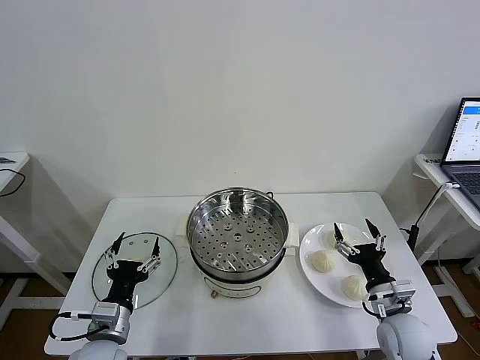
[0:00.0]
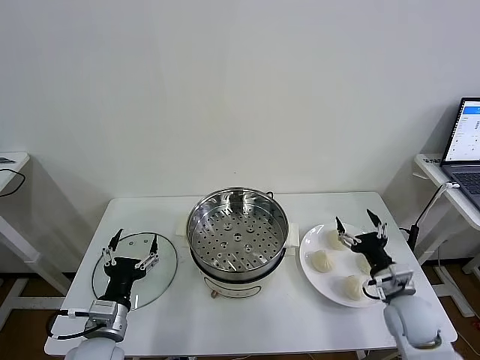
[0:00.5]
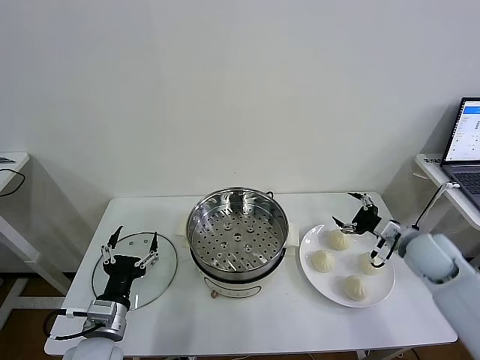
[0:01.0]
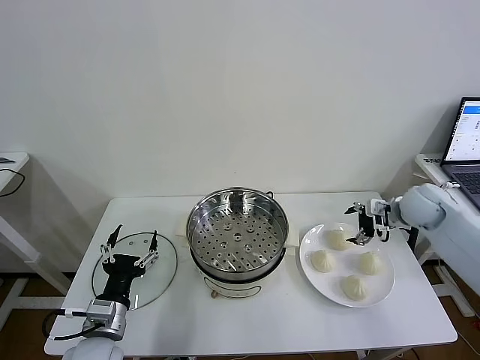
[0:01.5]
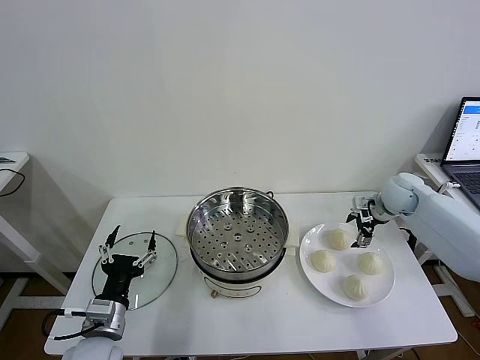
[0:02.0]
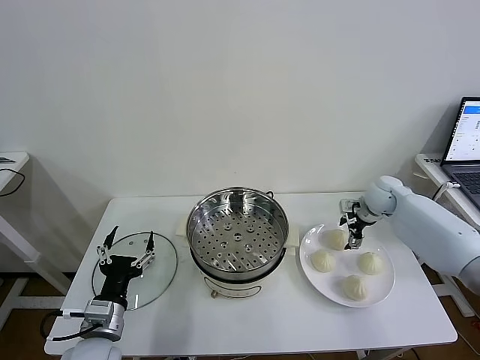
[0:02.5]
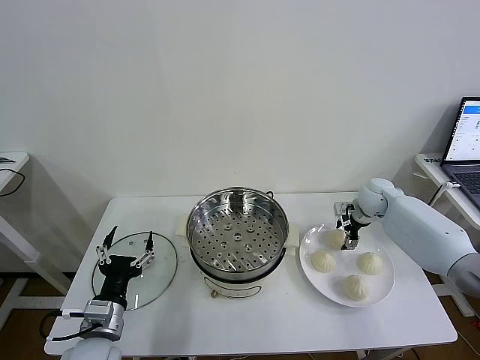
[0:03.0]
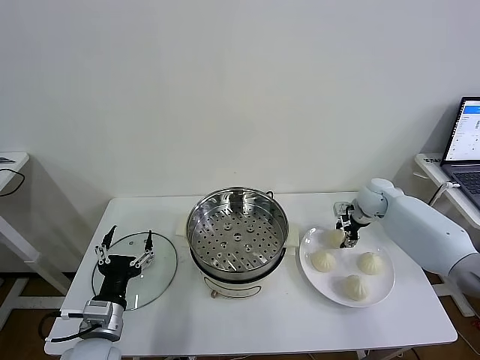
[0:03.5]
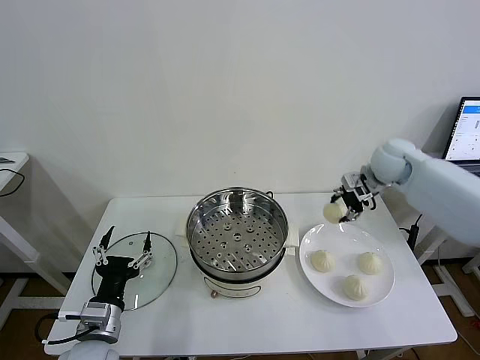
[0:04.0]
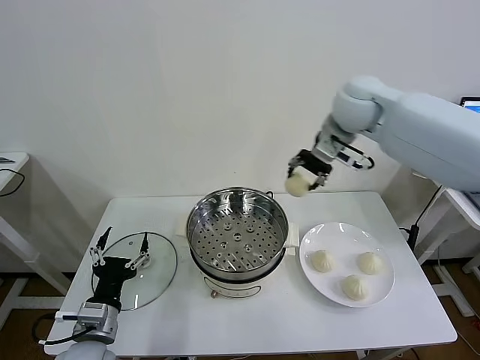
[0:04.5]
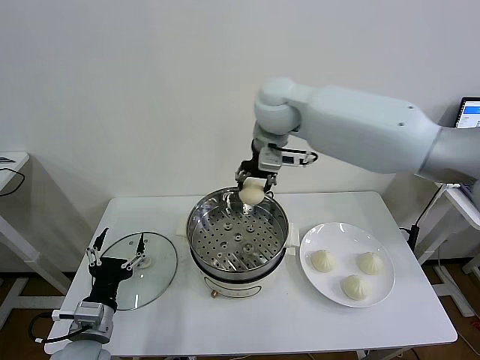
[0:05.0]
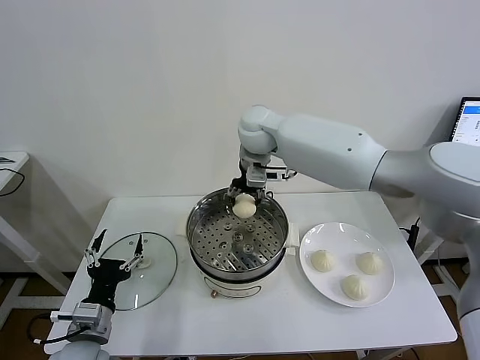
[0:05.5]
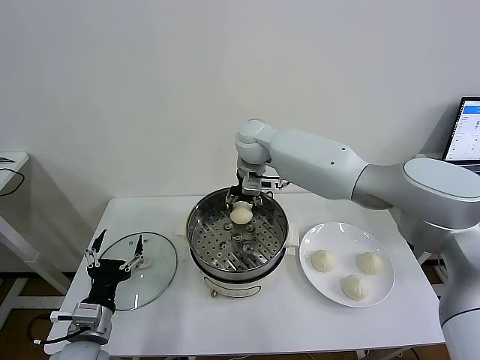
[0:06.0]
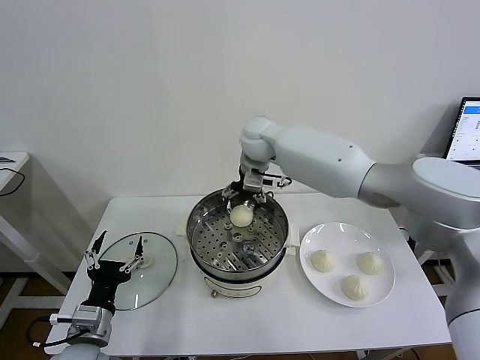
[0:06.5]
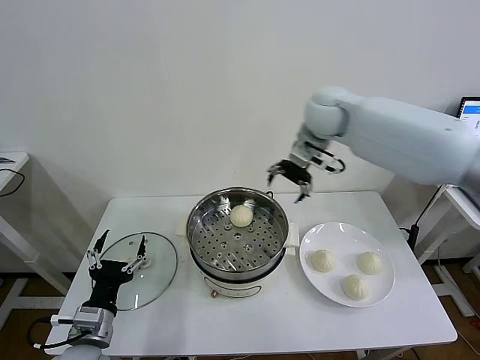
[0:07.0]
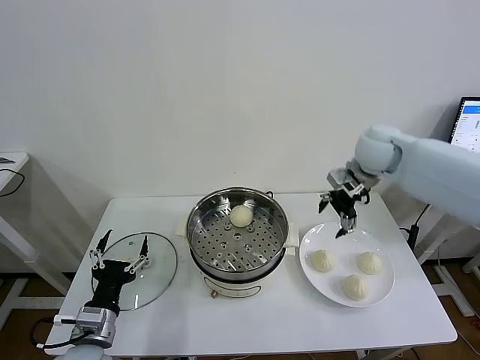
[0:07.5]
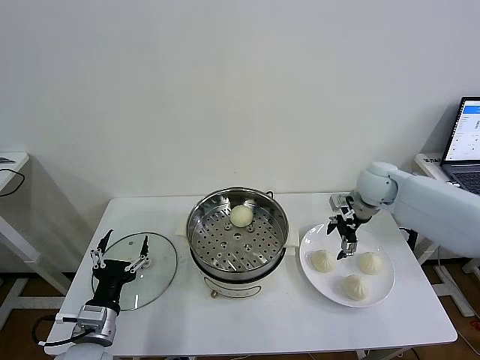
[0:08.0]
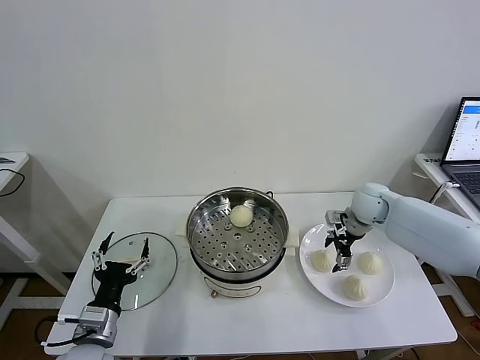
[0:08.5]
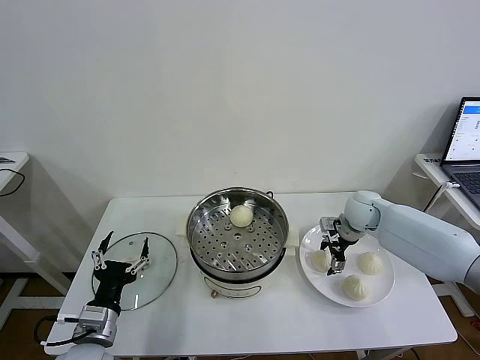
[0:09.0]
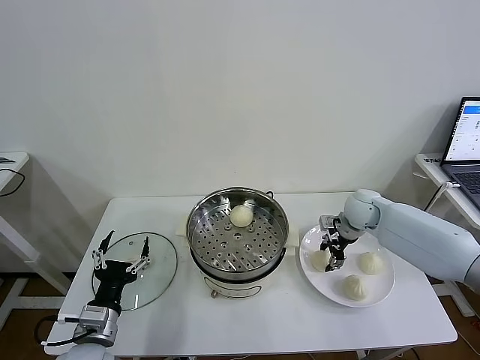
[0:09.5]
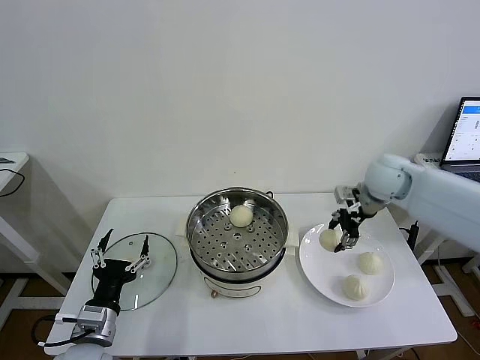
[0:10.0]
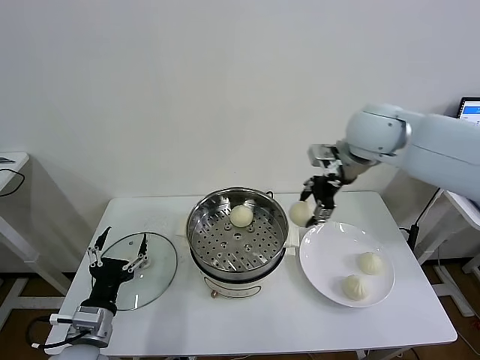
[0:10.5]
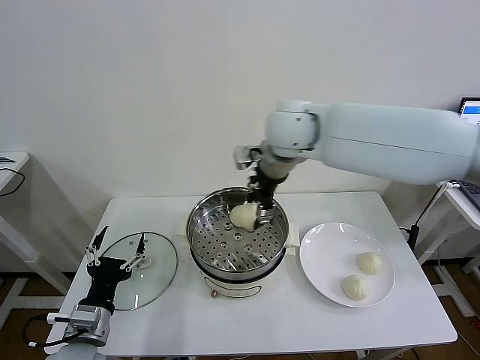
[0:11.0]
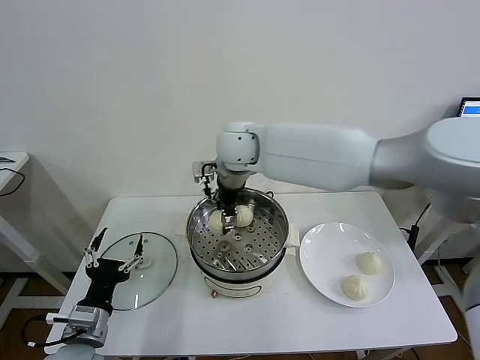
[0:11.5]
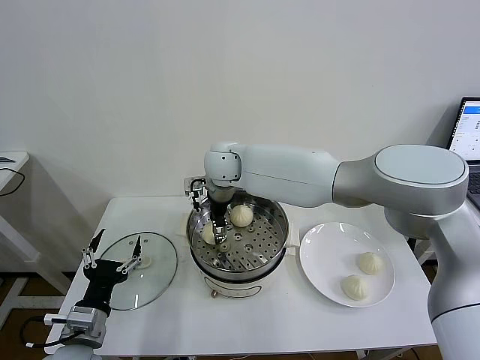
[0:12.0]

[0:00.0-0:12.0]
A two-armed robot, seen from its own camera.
Task of the whole recording: take steamed baozi put them in steamer then cover it.
Step, 0.0 to 3.0 s: Grasp the baozi in the plate with right gripper.
Step, 3.5 to 6.0 s: Place the baozi on the steamer with right gripper.
Step, 6.5 to 9.0 s: Grasp the baozi in the plate with right gripper.
2.0 to 4.0 s: The right gripper is displaced upward and to the left by roughly 15 cm, and closes up.
4.0 to 6.0 s: The right gripper moves to the left, approximately 30 cm.
6.0 to 8.0 s: The right gripper moves to the right, about 30 cm, and opens.
8.0 to 10.0 s: The right gripper goes some 5 cm upward, and closes its fingers.
10.0 to 12.0 s: The right gripper goes about 35 cm to the left, and opens.

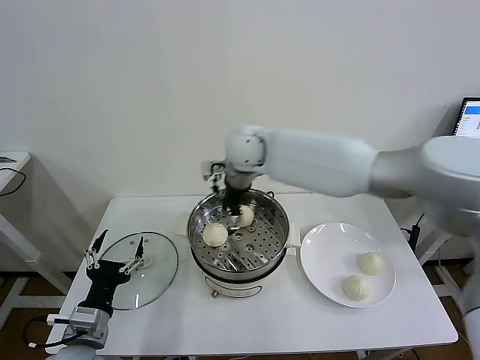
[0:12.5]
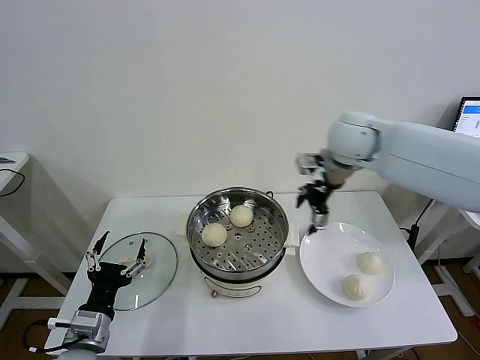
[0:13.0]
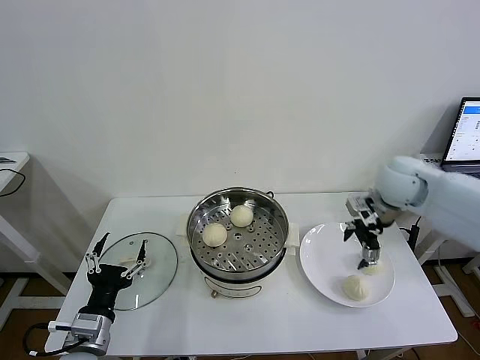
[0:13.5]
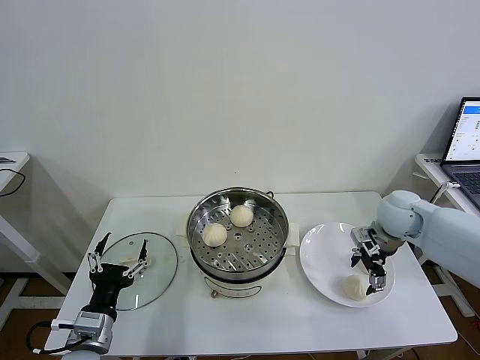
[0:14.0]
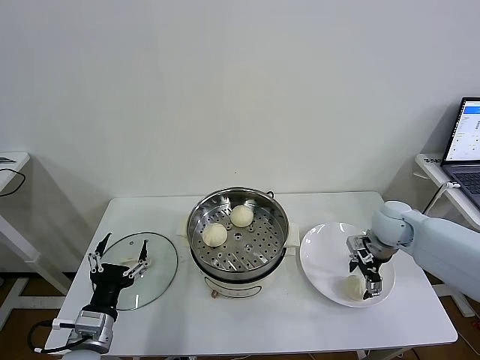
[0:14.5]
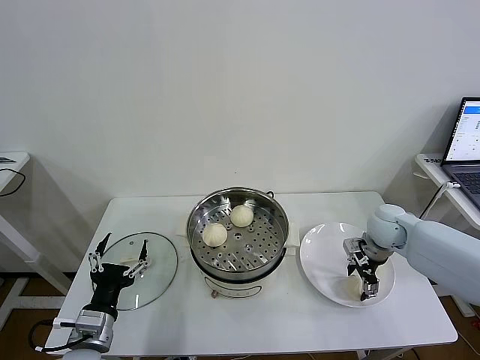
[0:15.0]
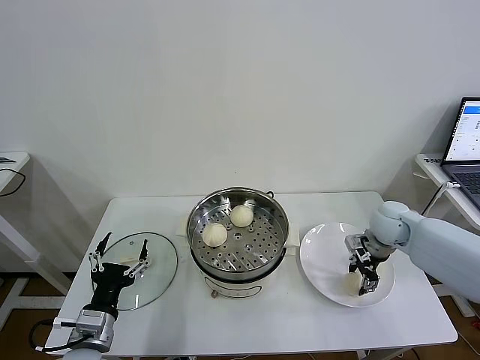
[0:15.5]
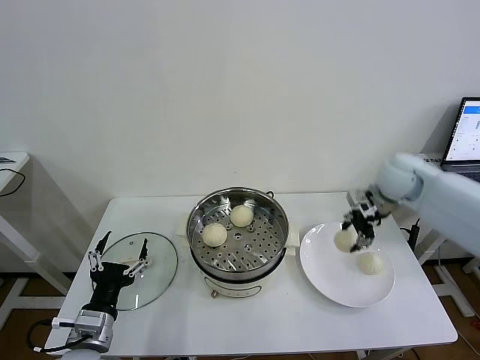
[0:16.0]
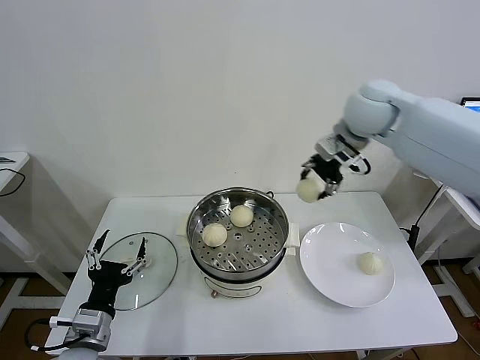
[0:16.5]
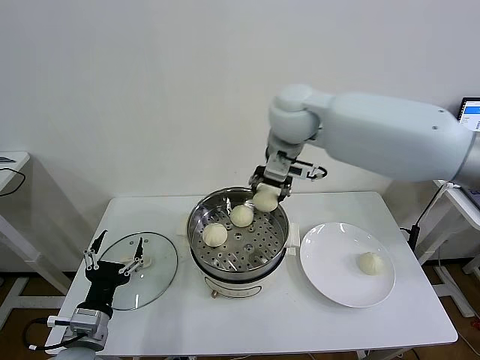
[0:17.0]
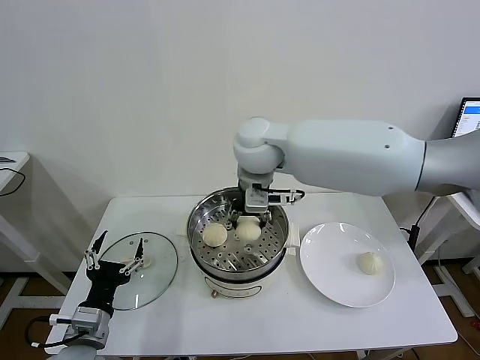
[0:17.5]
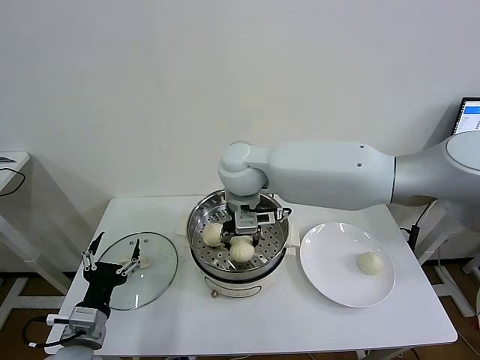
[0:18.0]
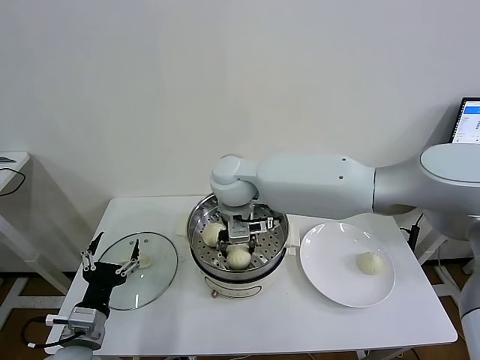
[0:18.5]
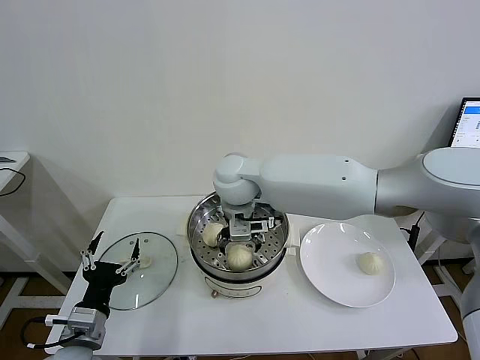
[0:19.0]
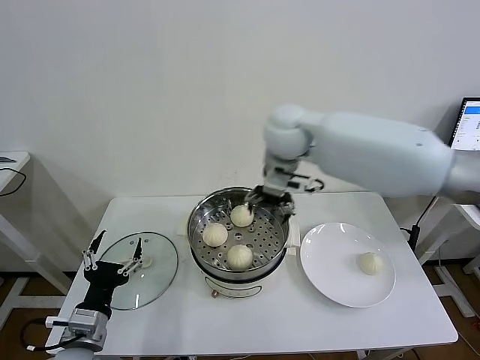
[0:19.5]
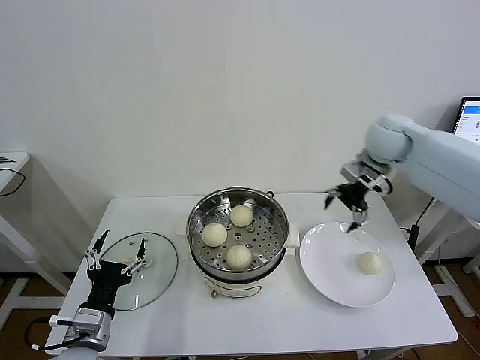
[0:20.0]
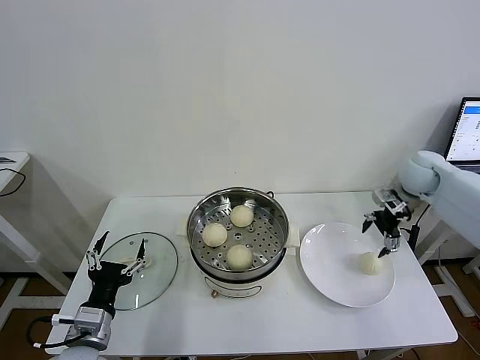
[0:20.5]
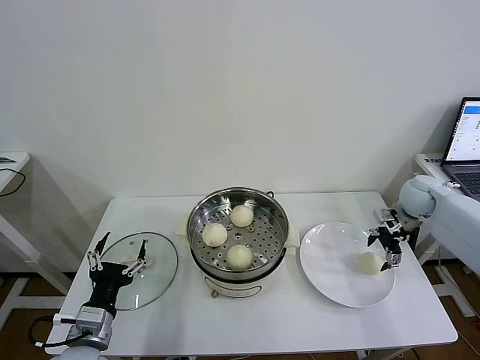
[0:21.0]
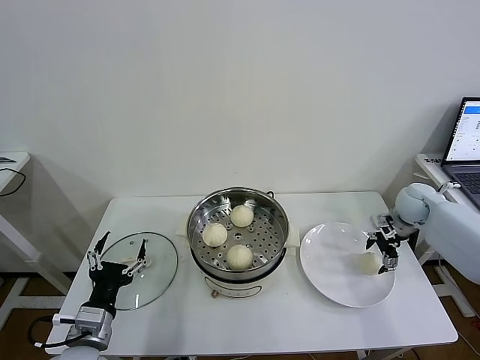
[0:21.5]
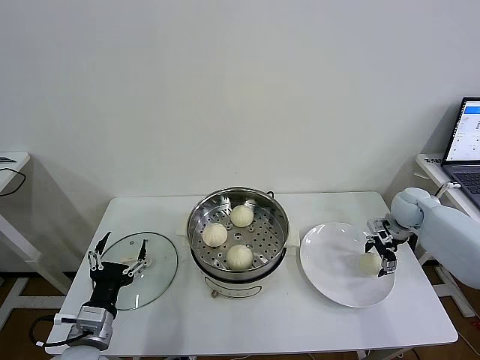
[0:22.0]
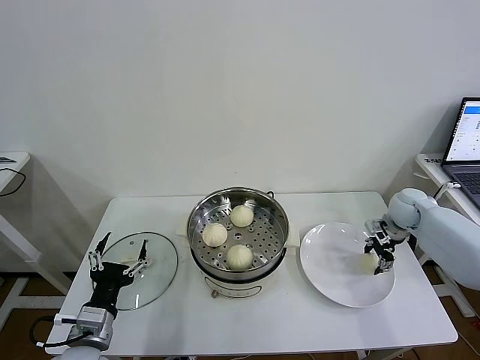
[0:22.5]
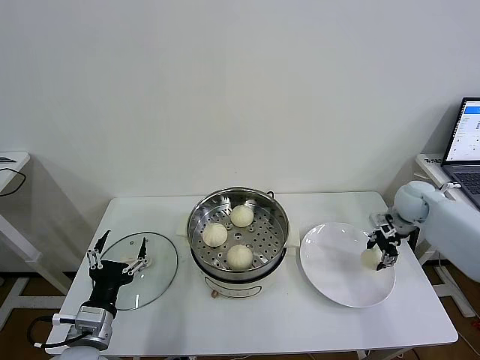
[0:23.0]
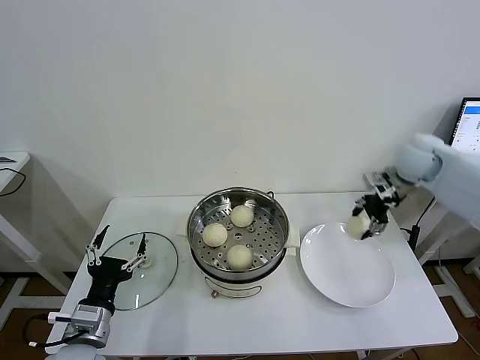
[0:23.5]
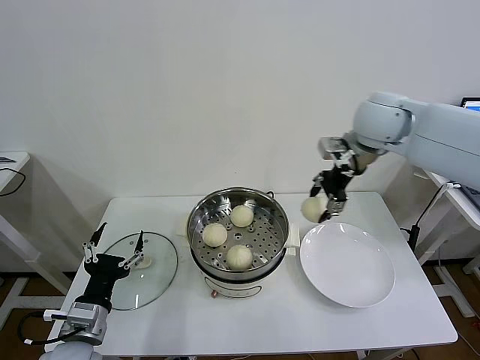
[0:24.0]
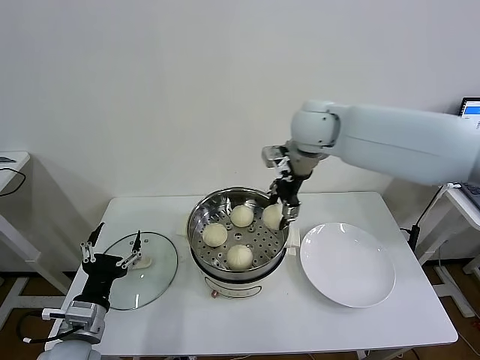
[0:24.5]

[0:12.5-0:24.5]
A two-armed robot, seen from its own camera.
Task of the whole recording: take steamed baozi put them in steamer then cover it.
Step, 12.5 to 15.0 s: Grasp the baozi in the plate with right gripper.
Step, 15.5 to 19.0 s: Place the baozi on the steamer with right gripper.
Step, 19.5 to 22.5 s: Grasp the baozi in the plate with right gripper.
12.5 to 14.5 s: The right gripper travels to the right and downward by about 35 cm.
14.5 to 16.5 s: The right gripper goes about 30 cm upward and to the left, and closes up.
16.5 to 18.5 s: The right gripper moves to the left and downward, roughly 25 cm.
18.5 to 20.5 s: The right gripper is displaced to the right by about 40 cm, and opens its fingers.
20.5 to 22.5 s: The right gripper is displaced downward by some 10 cm, and closes.
22.5 to 24.5 s: The right gripper is displaced to the left and upward by some 40 cm.

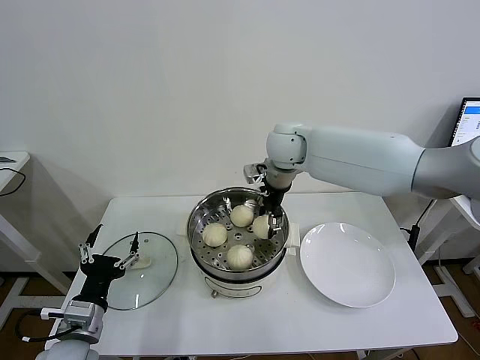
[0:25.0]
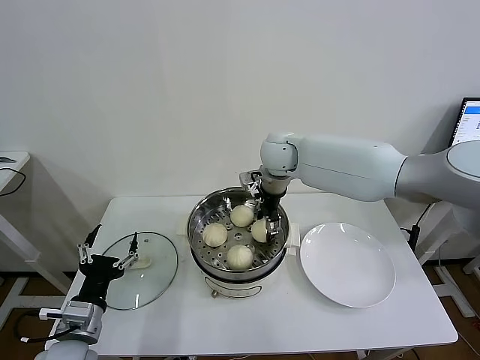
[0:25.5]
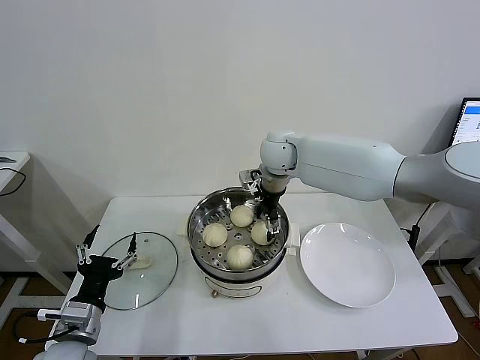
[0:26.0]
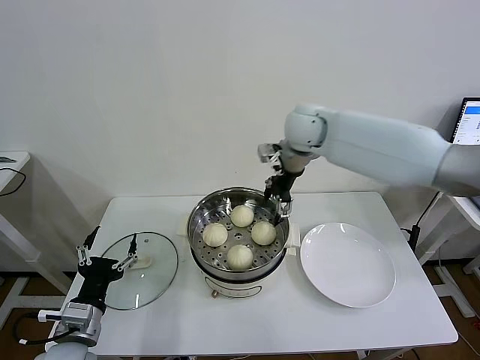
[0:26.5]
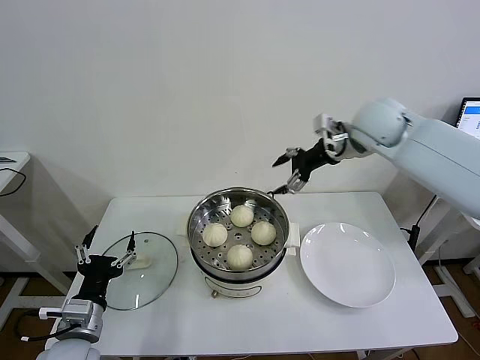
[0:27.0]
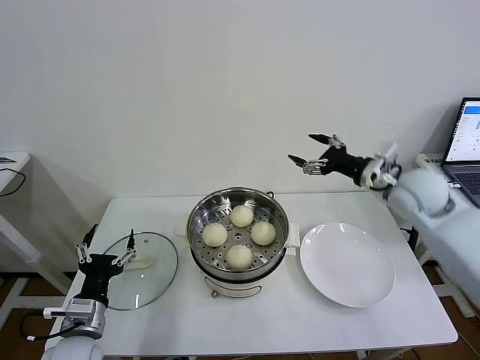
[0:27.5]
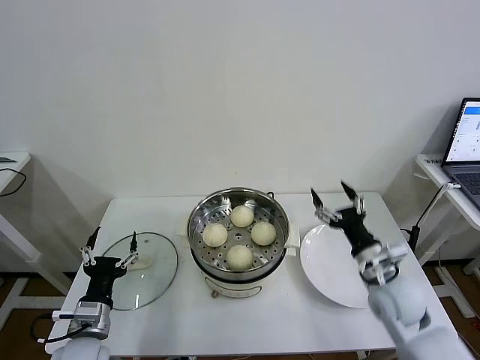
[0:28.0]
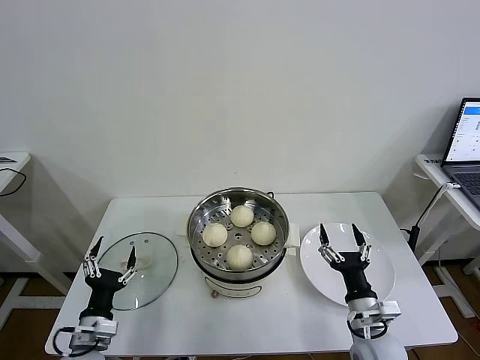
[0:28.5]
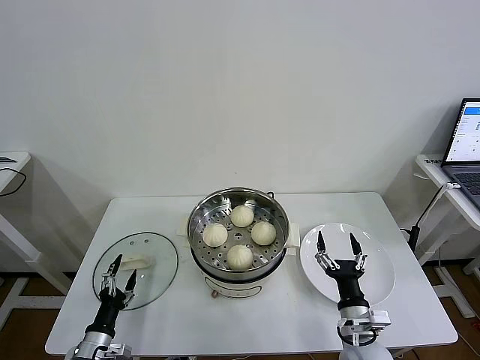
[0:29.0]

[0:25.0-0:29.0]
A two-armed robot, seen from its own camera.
Task of the whole recording: take steamed baozi put them in steamer then cover it.
25.0 to 27.0 s: The right gripper travels to the right by approximately 15 cm, and opens up.
27.0 to 29.0 s: The right gripper goes about 50 cm downward and backward. The left gripper travels downward by approximately 15 cm.
